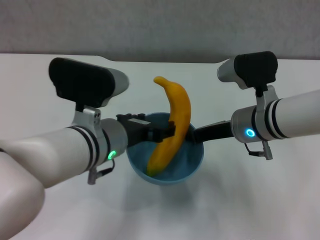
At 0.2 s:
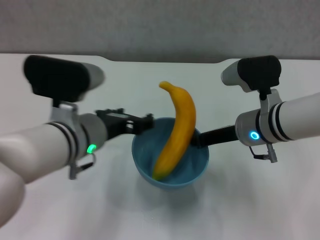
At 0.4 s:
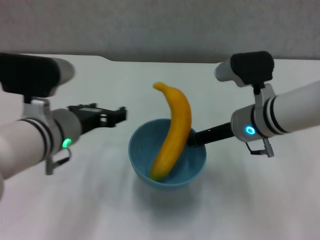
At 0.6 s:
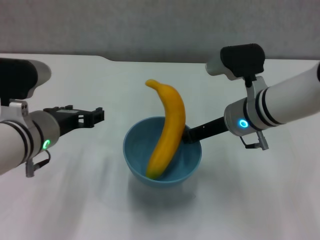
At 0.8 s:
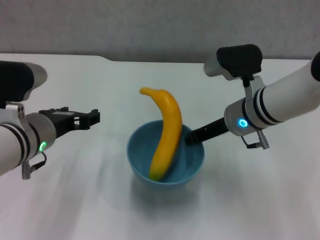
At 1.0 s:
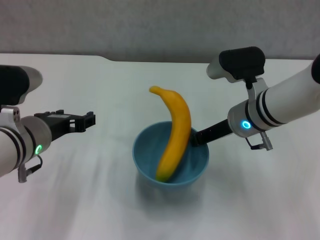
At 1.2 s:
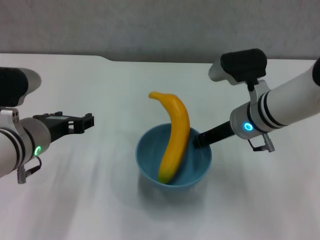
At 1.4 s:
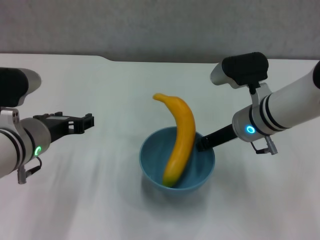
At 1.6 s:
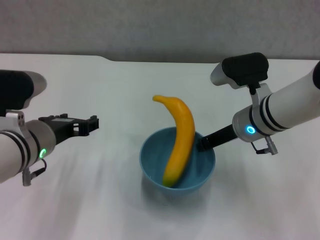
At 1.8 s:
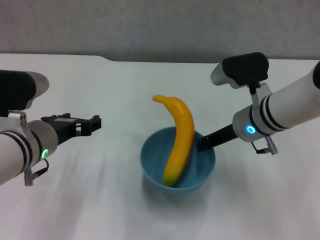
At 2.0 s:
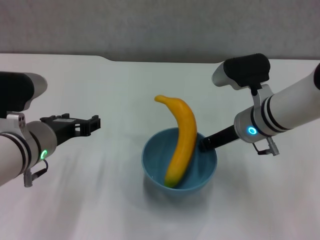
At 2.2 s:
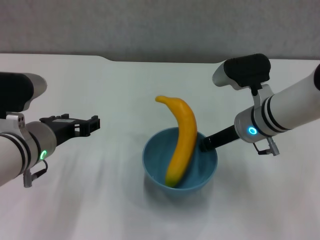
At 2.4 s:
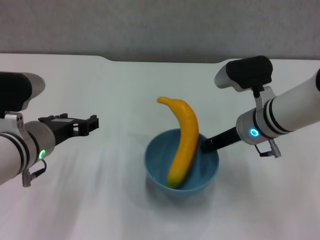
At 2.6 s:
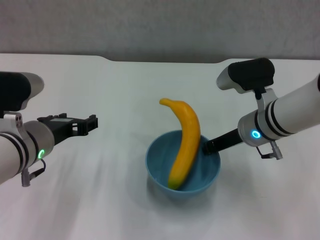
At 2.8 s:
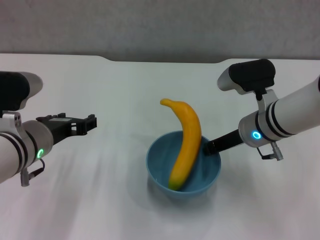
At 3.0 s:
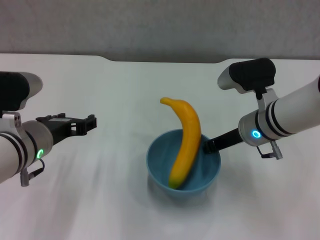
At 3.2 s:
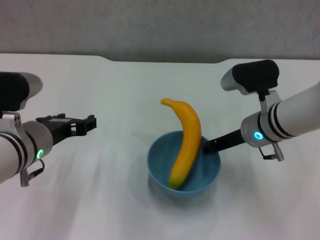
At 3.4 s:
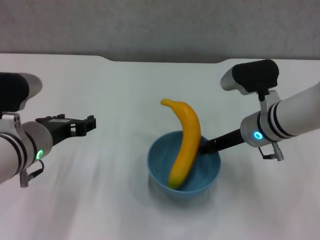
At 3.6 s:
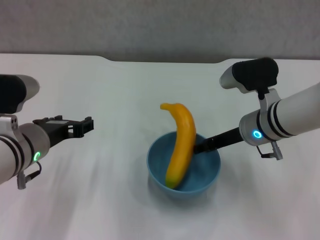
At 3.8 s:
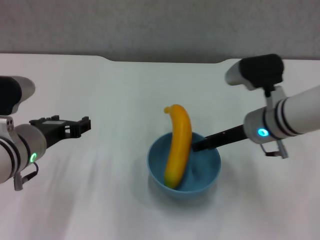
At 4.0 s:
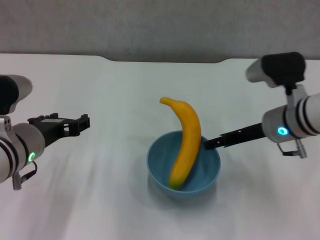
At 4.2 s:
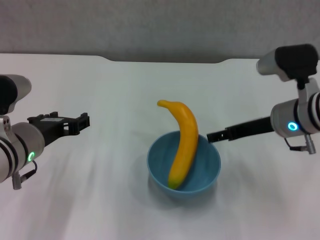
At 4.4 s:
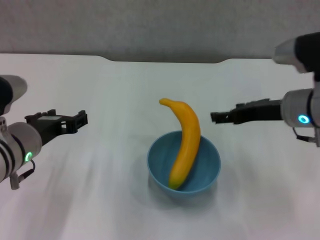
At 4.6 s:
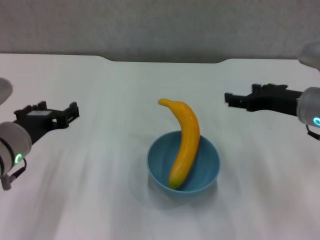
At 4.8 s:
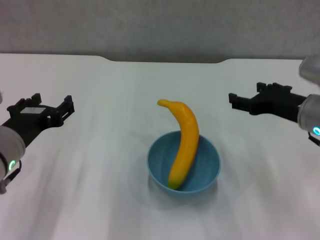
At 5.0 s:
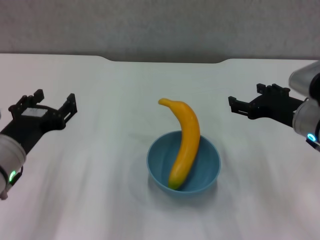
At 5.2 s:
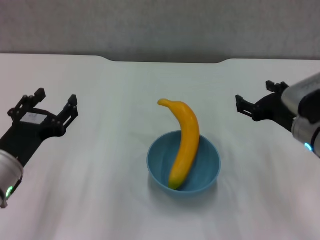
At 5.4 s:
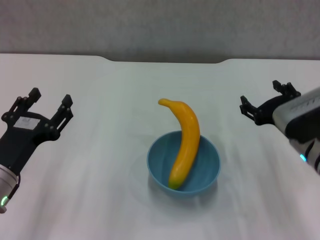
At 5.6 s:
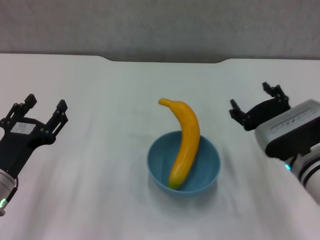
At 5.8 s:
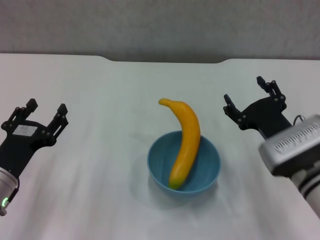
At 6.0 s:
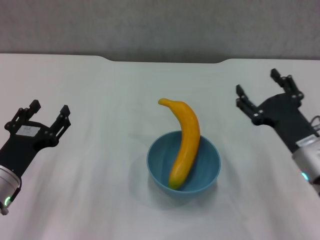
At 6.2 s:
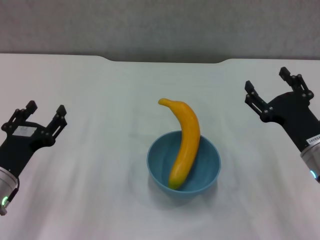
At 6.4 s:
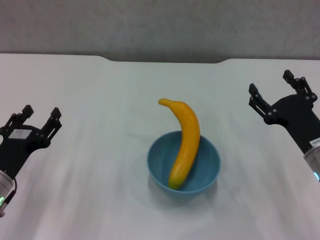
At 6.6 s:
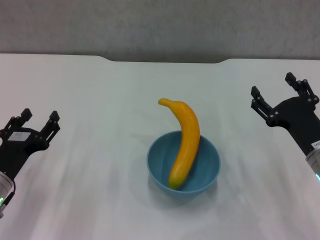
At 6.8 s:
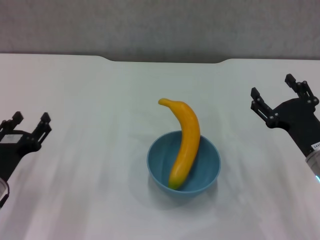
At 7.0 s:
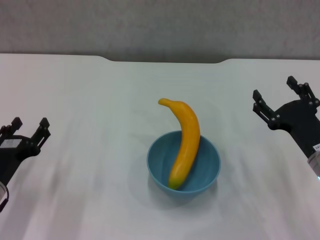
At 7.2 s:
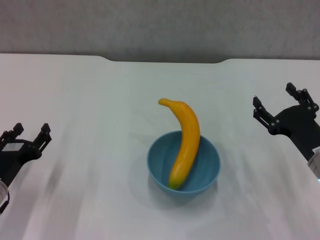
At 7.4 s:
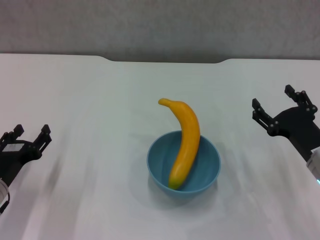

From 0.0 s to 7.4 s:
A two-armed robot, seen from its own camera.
Step, from 0.2 s to 3.8 s: Place the bowl on the table with right gripper.
From 0.0 s to 1.4 s: The left gripper shifts approximately 10 cm to the left.
From 1.4 s to 3.0 s: Both grippers stay about where they are.
From 3.0 s to 4.4 s: The right gripper is displaced to the right and upward by some 10 cm, and opens.
From 4.4 s to 6.0 s: The right gripper shifts about 10 cm downward and backward. The left gripper is displaced downward by roughly 10 cm.
From 6.0 s to 7.4 s: The grippers move only a little.
